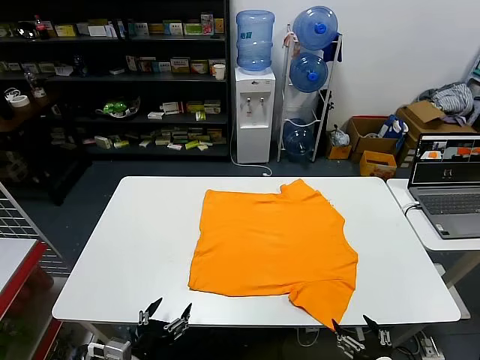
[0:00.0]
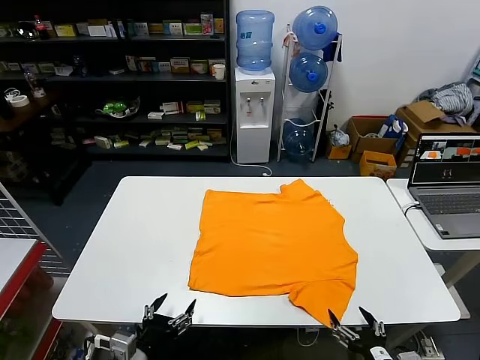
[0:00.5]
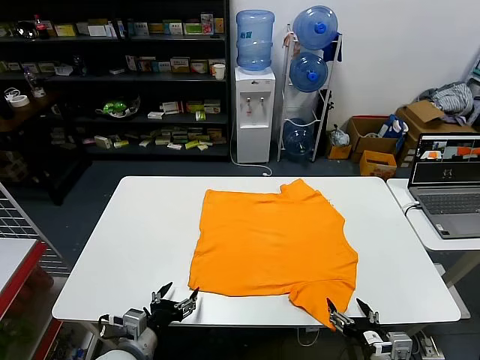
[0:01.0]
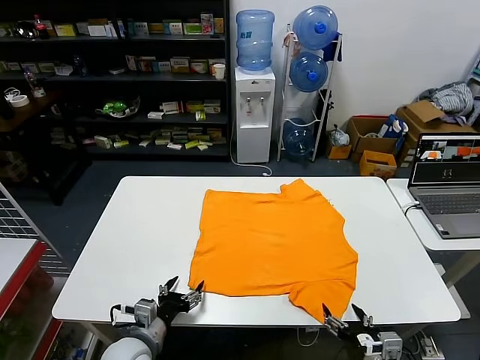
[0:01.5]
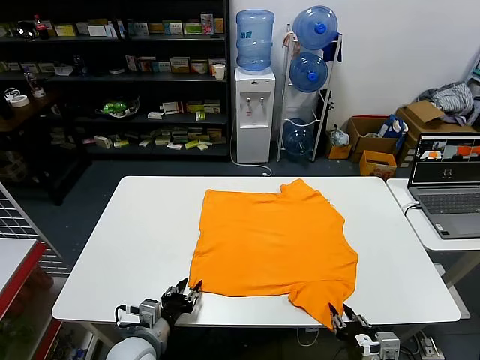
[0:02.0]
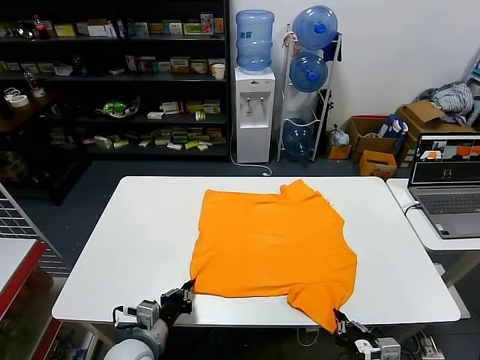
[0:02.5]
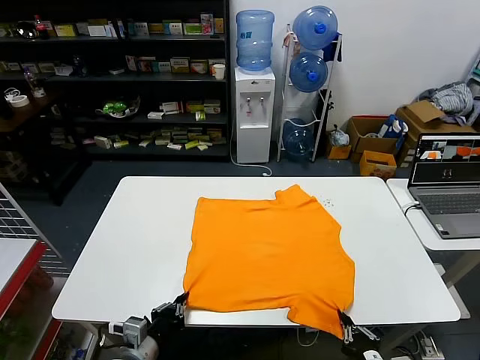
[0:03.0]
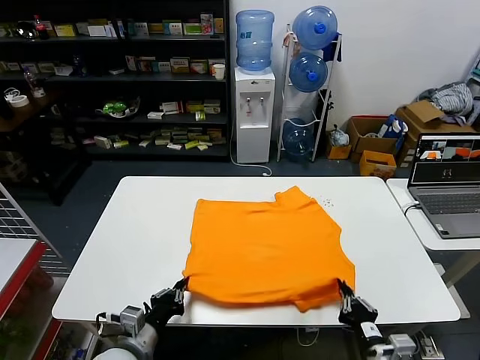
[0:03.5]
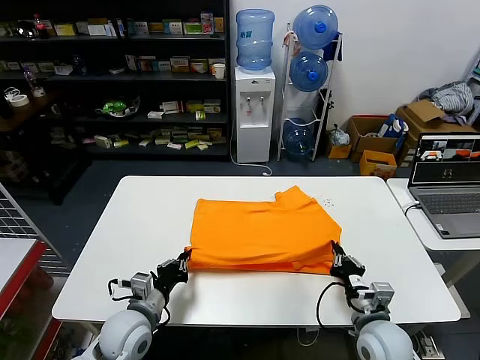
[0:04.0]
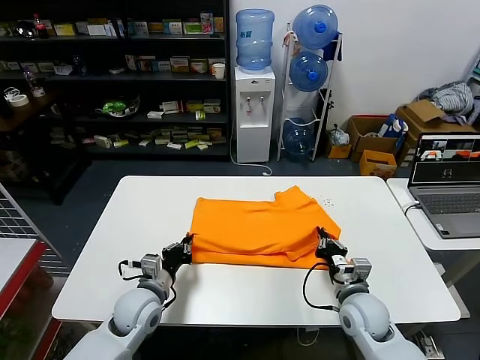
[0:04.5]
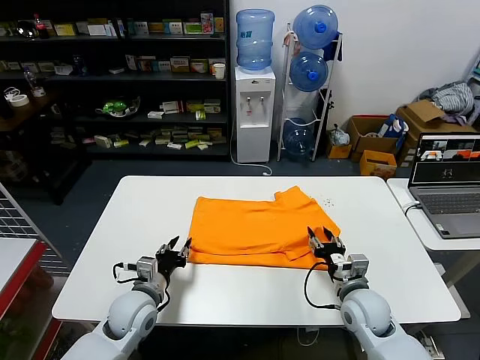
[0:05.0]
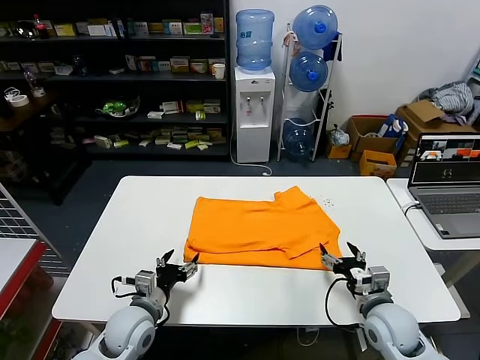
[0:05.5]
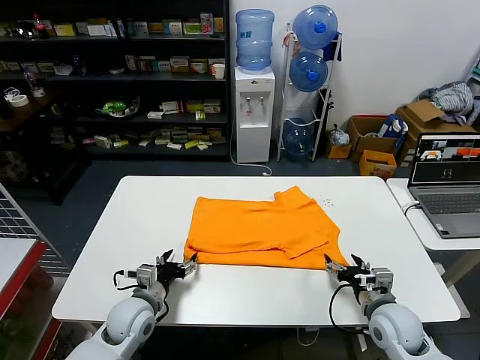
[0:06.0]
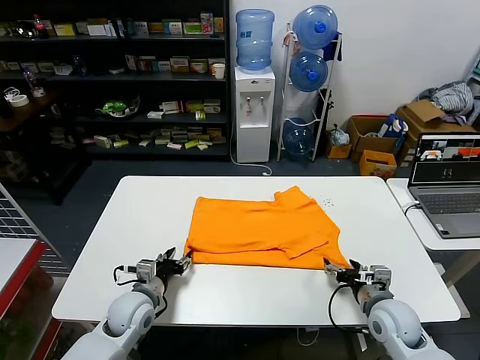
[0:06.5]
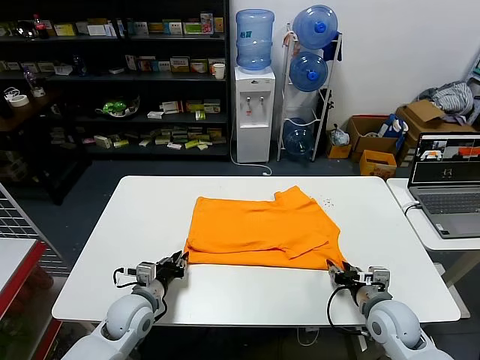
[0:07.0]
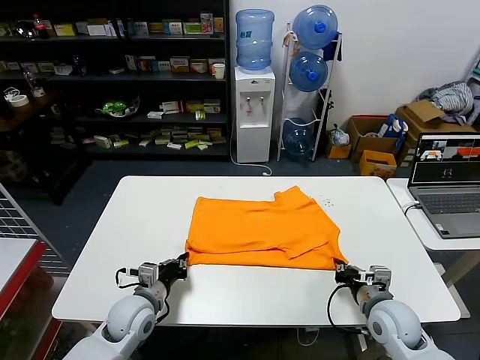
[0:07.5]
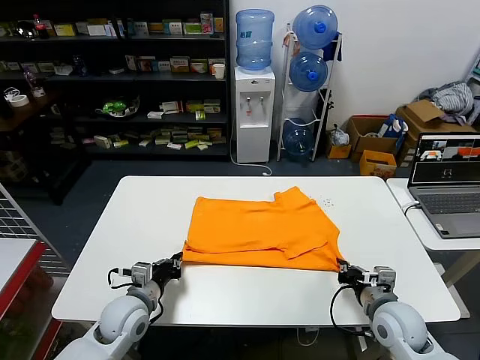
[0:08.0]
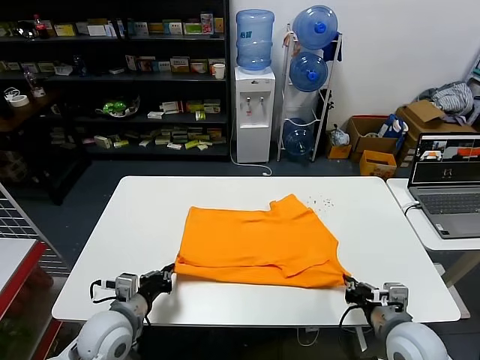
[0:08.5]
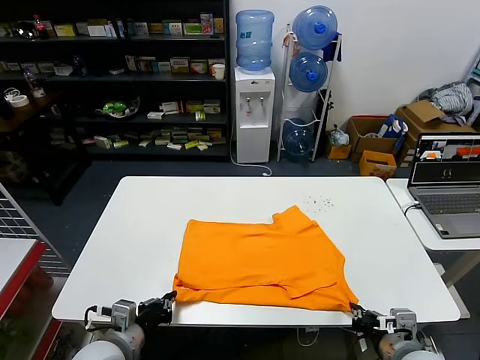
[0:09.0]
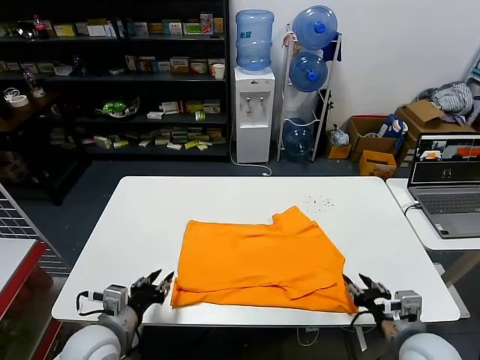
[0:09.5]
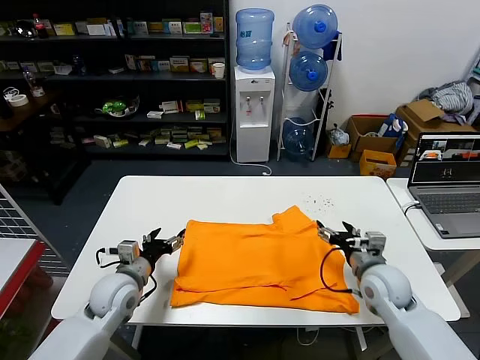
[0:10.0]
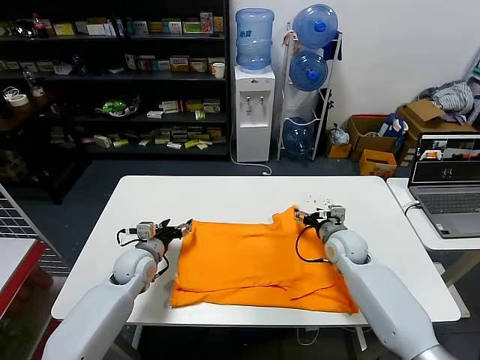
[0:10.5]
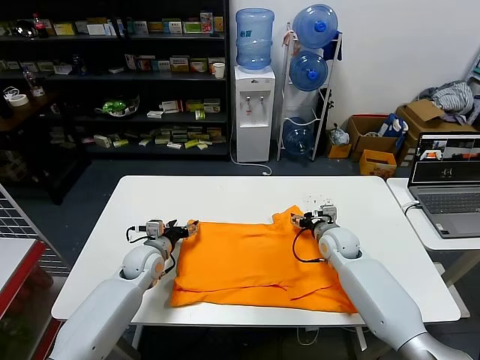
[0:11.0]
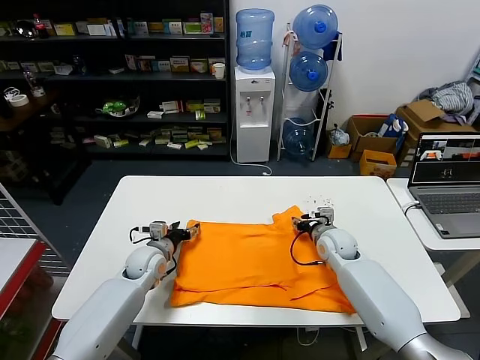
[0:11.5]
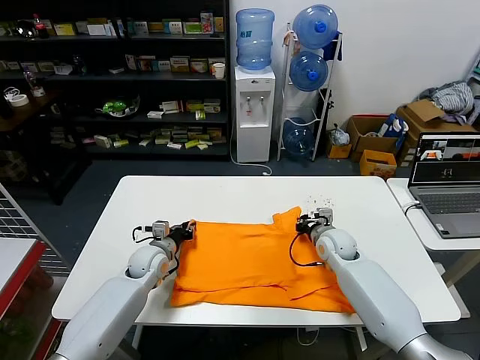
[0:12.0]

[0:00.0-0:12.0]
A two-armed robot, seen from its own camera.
Task of the whole recording: fold and organize the clothes.
Step, 0:00.0 to 0:02.0: use both grippers simultaneously to clamp the lower edge of the clothing fabric.
Step, 0:02.5 to 0:05.0: use both grippers to drag the lower edge of the fabric forward and fold it over the upper edge.
Step, 0:05.5 to 0:09.0: Drag the clothes downward with both gripper.
0:02.0 to 0:04.0: The left gripper moves approximately 5 cm, and closes up; the right gripper goes some 10 cm forward.
0:04.0 to 0:06.0: The right gripper opens up. The left gripper opens its fingers.
0:06.0 to 0:08.0: The left gripper closes; the right gripper closes its fingers.
0:08.0 to 0:10.0: The left gripper reaches approximately 10 cm backward, then returns, and opens up. Meanwhile the right gripper moves forward, some 10 cm, and opens.
0:10.0 to 0:12.0: The right gripper moves forward and to the left, roughly 15 cm, and closes. Meanwhile the left gripper is displaced forward and downward by some 15 cm, and closes its fingers.

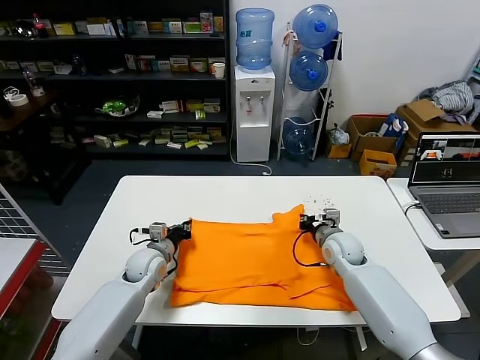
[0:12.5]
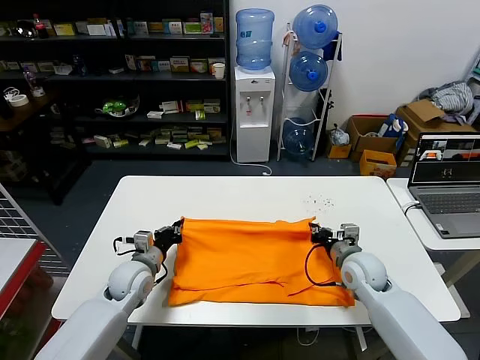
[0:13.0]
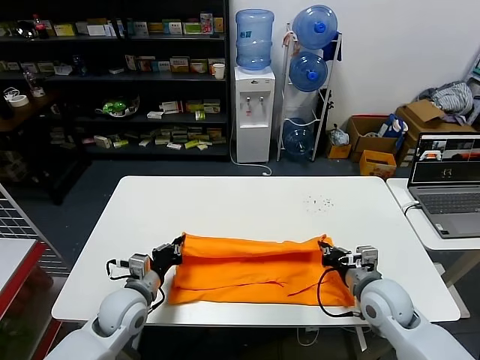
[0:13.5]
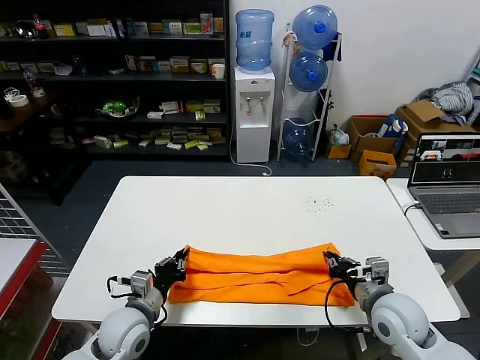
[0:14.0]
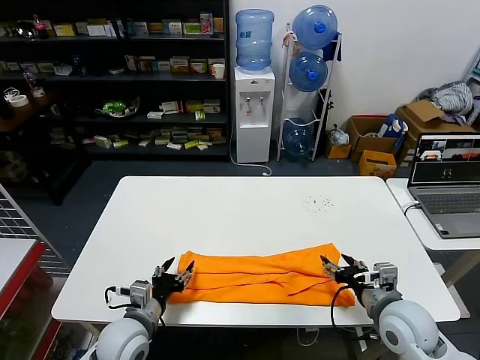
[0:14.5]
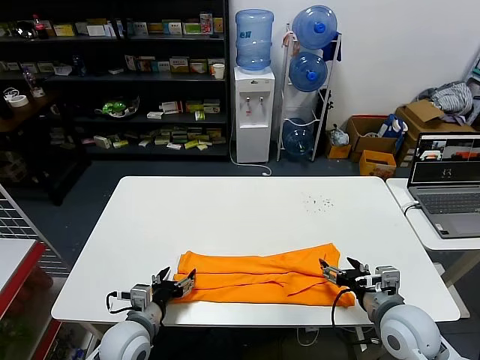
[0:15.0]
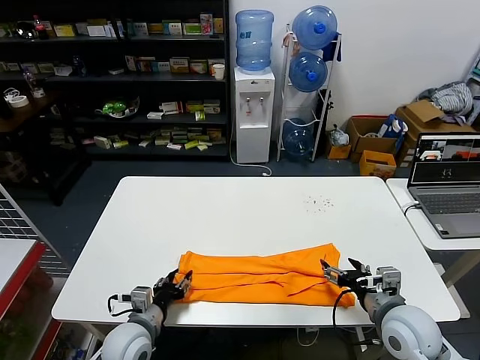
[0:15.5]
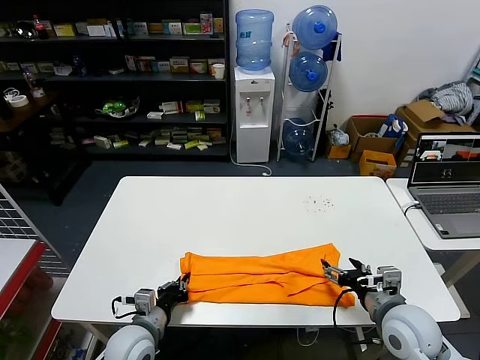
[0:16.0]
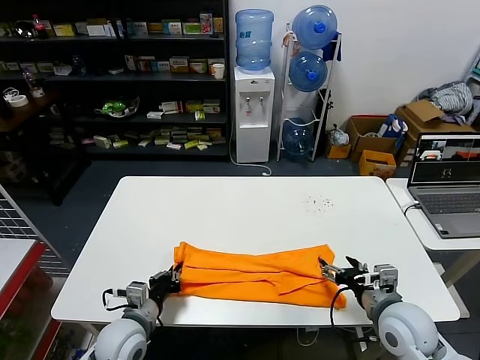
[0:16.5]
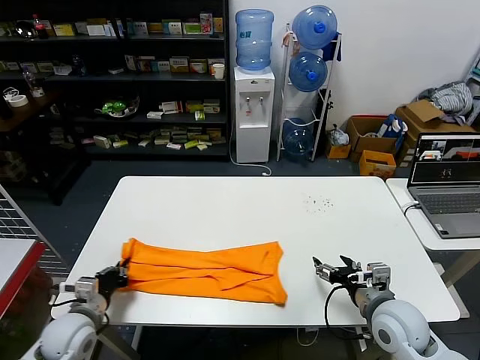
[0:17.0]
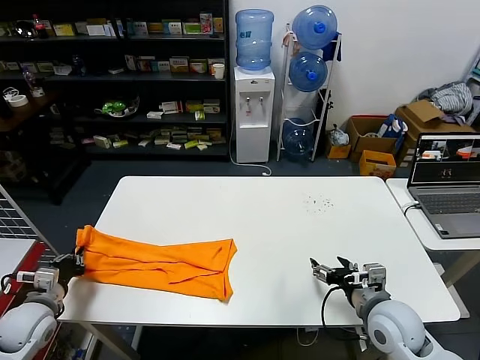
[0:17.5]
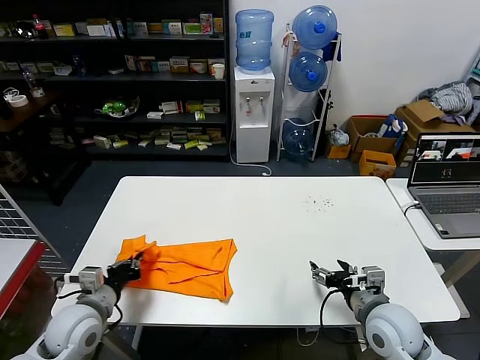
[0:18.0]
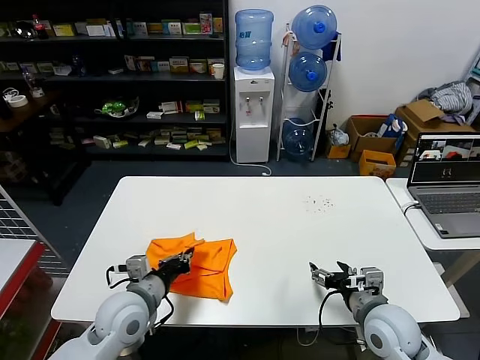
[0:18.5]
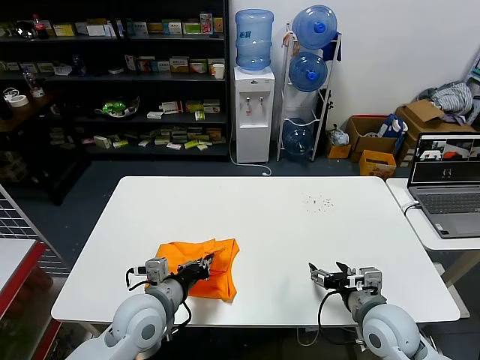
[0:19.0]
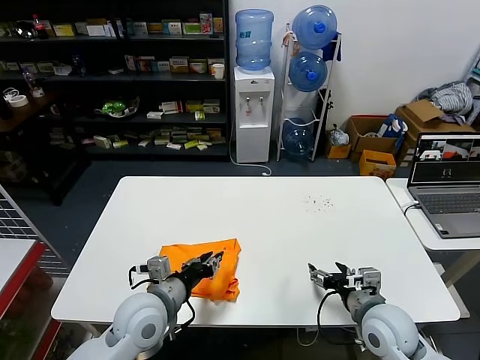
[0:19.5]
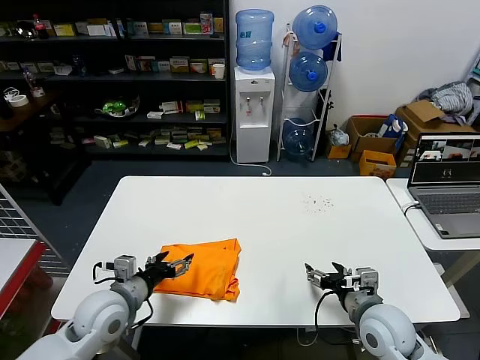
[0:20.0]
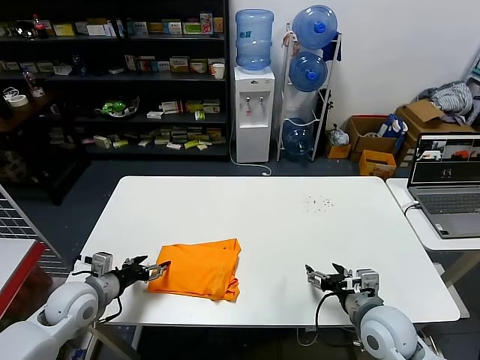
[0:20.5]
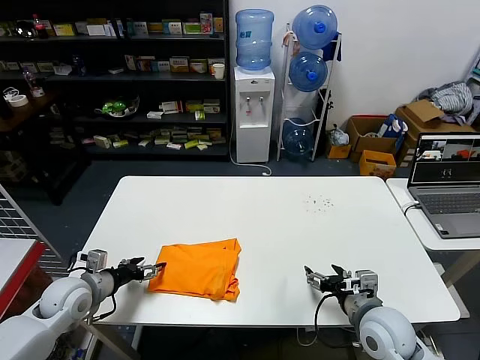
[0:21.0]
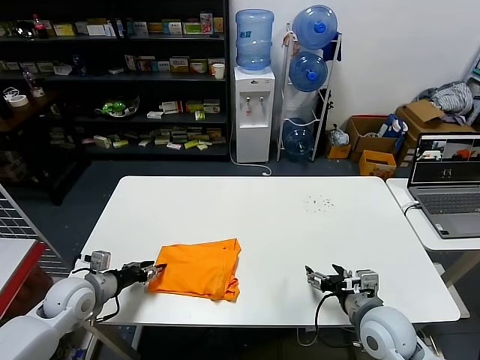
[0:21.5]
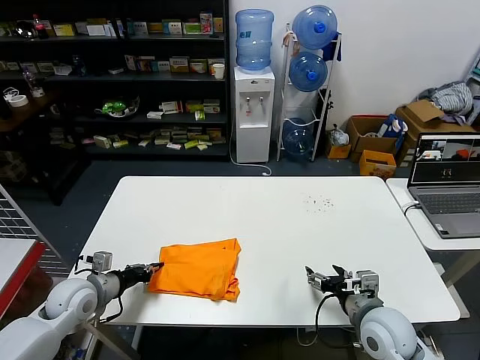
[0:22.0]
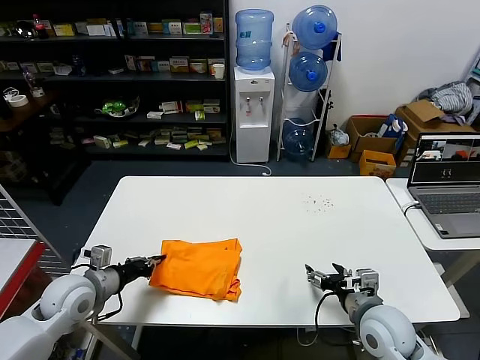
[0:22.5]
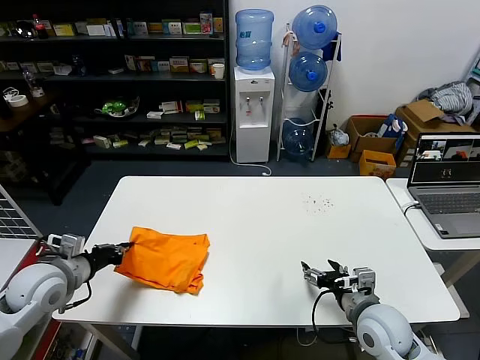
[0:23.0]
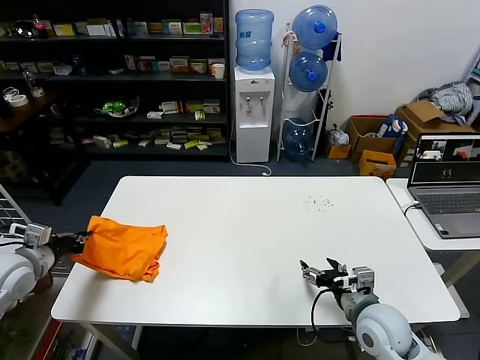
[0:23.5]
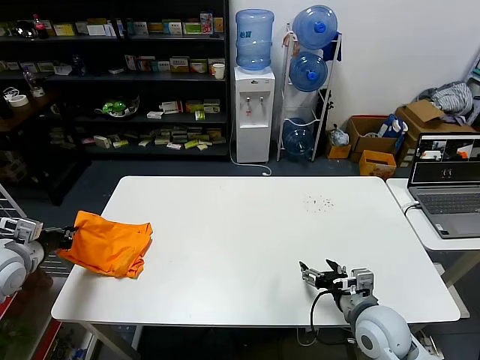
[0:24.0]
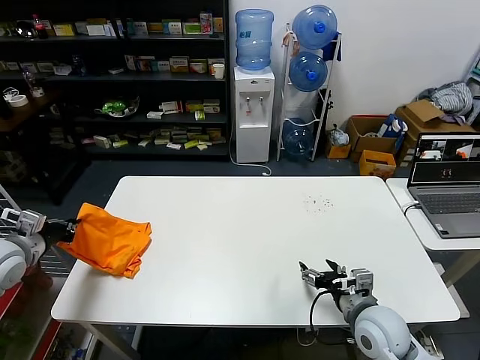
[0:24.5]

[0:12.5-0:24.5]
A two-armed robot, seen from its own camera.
Task of the whole recording: fold and organize the clothes.
Step, 0:12.5 to 0:14.0: use both grippers to drag the upper edge of the fabric backward and fold it over the lower edge.
Step, 0:14.5 to 0:16.0: use the left gripper to clamp the left edge of the fabric.
Step, 0:16.5 to 0:19.5: use the left gripper to drag the left edge of the fabric to the left and folds it over the right edge.
0:12.5 to 0:14.5: Both grippers move backward, approximately 20 cm. The right gripper opens. The left gripper opens up.
0:14.5 to 0:16.5: The left gripper closes.
0:16.5 to 0:18.5: The left gripper goes some 5 cm upward, and moves some 20 cm to the left and comes back.
0:18.5 to 0:20.5: The left gripper moves to the left, about 10 cm, and opens up.
0:20.5 to 0:22.5: The left gripper closes its fingers.
0:22.5 to 0:24.5: The left gripper heads to the left and upward, covering approximately 15 cm.

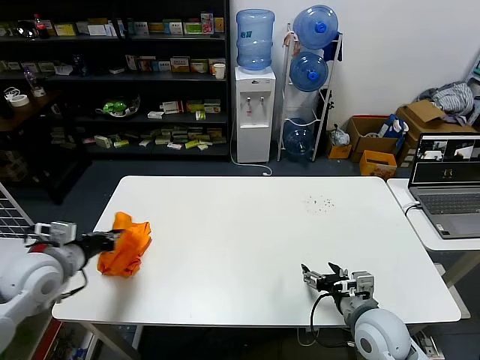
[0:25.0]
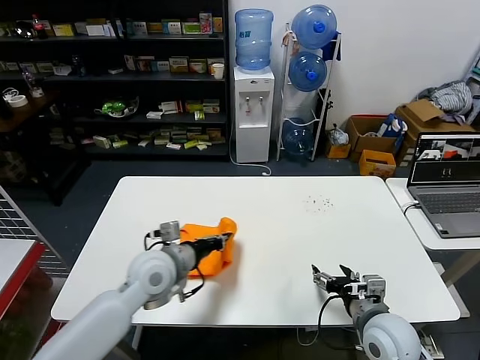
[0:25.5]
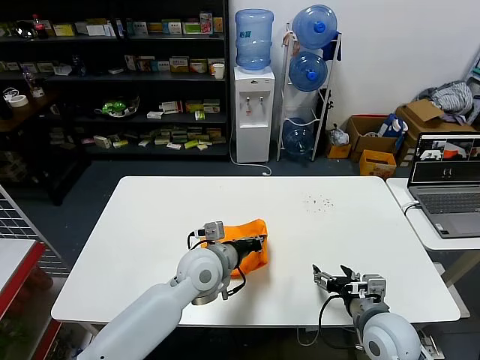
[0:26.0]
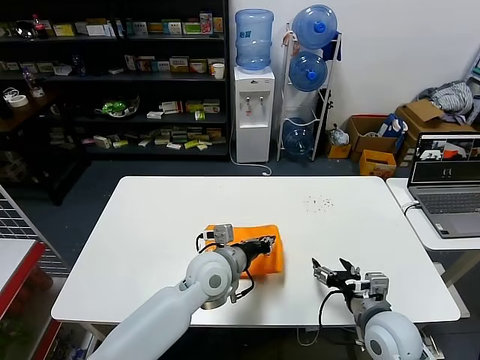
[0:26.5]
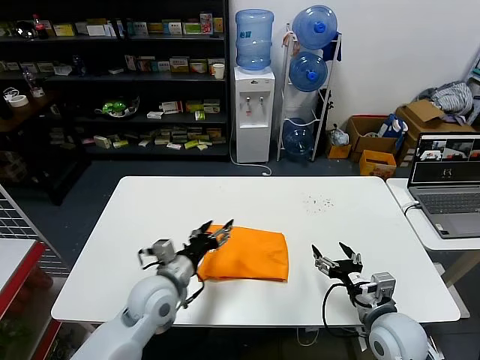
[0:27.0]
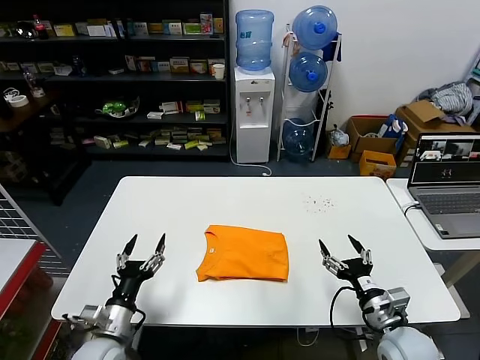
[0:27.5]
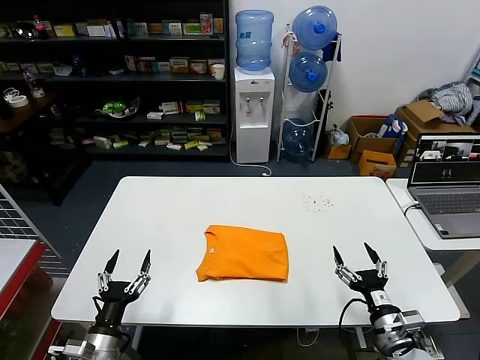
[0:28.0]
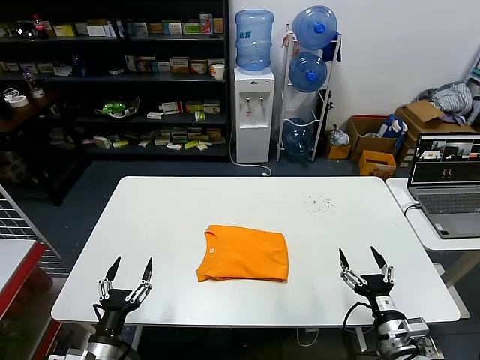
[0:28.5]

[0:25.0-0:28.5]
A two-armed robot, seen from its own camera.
Task of the whole recording: fold and organize the clothes.
0:25.0 to 0:27.0: The left gripper is displaced to the right by some 25 cm, and opens.
0:27.0 to 0:28.5: The right gripper is displaced backward by approximately 5 cm, while the left gripper goes approximately 25 cm backward, to the left and downward.
